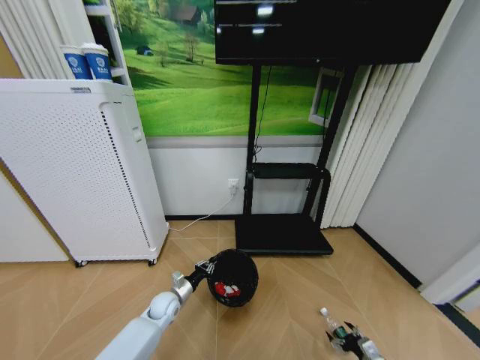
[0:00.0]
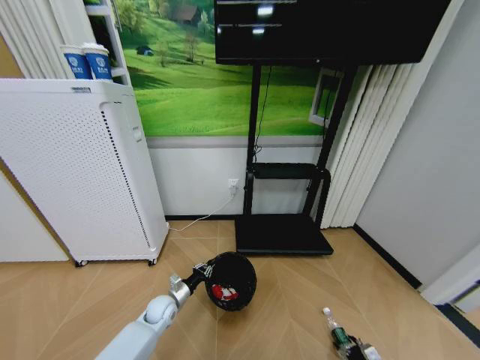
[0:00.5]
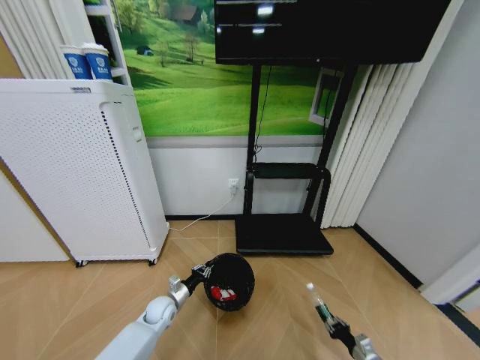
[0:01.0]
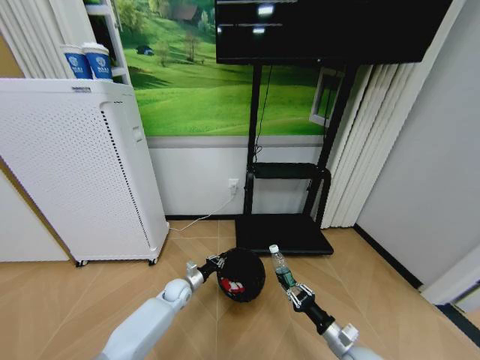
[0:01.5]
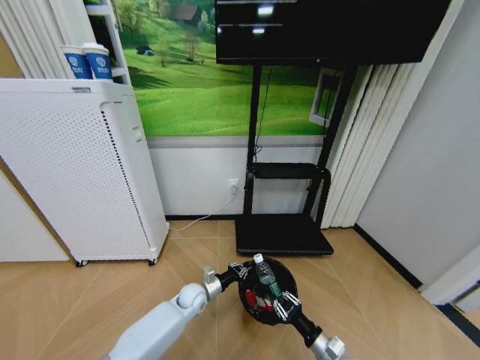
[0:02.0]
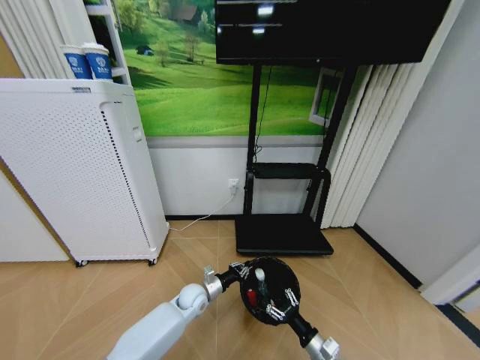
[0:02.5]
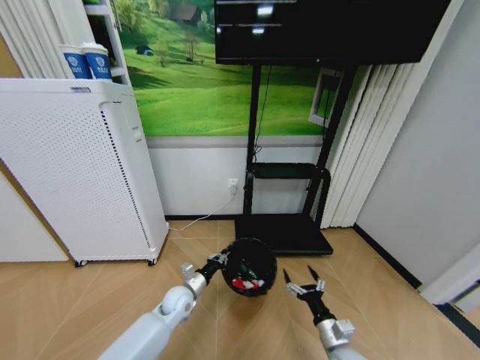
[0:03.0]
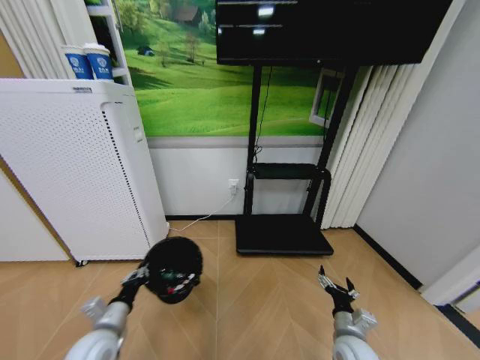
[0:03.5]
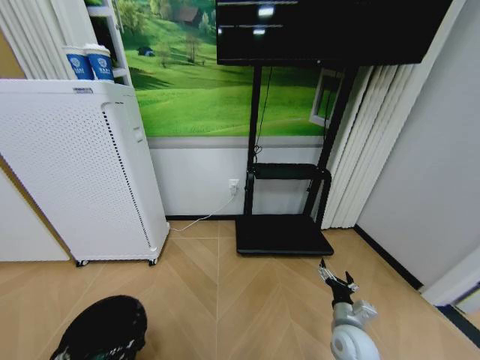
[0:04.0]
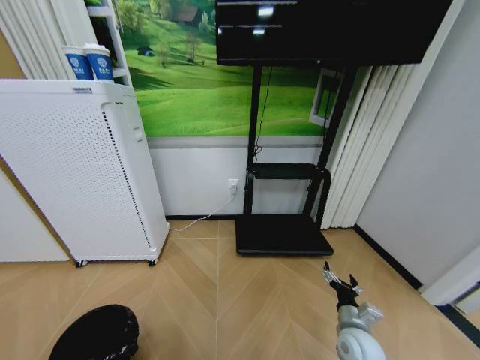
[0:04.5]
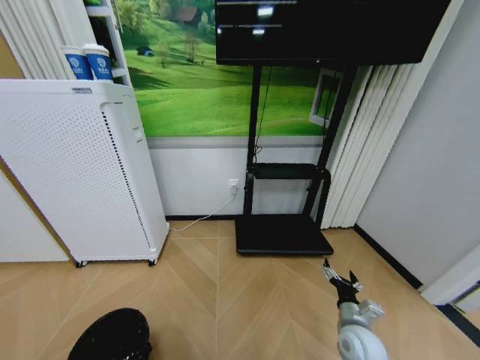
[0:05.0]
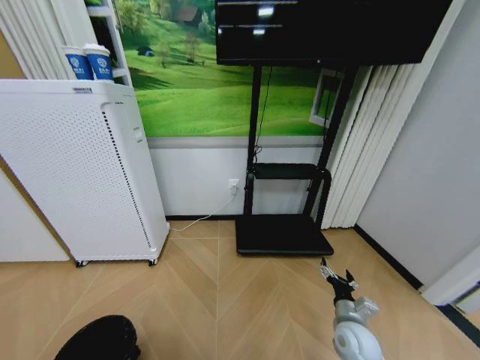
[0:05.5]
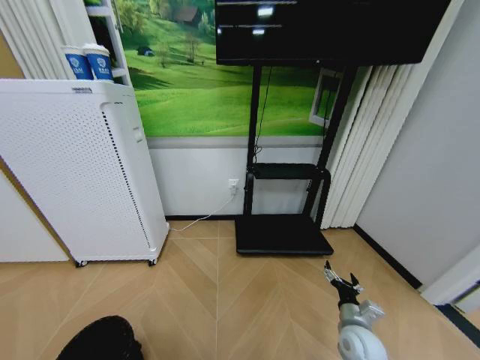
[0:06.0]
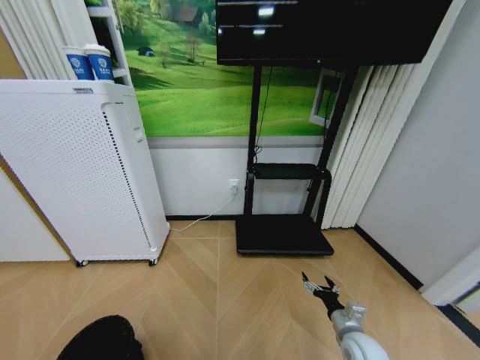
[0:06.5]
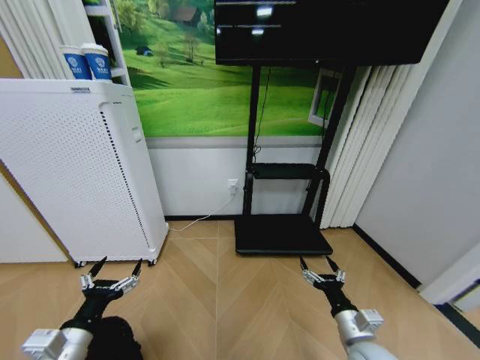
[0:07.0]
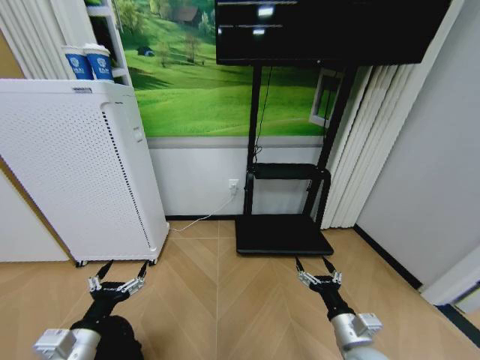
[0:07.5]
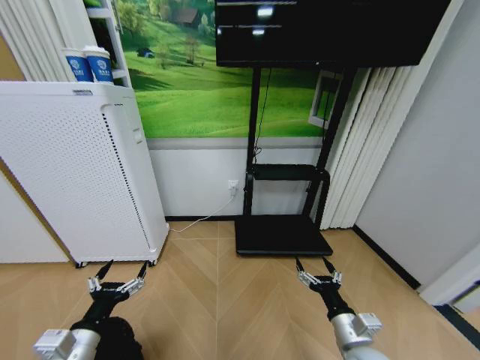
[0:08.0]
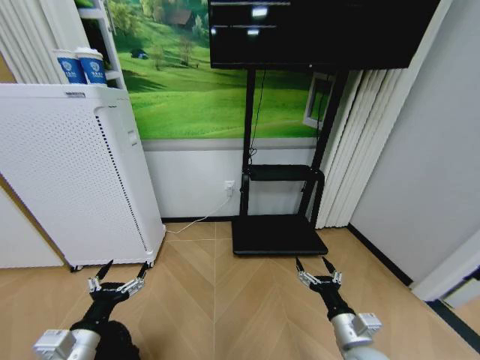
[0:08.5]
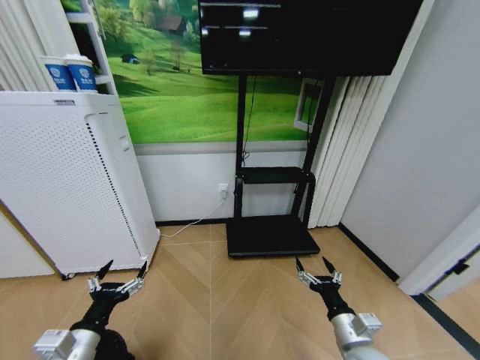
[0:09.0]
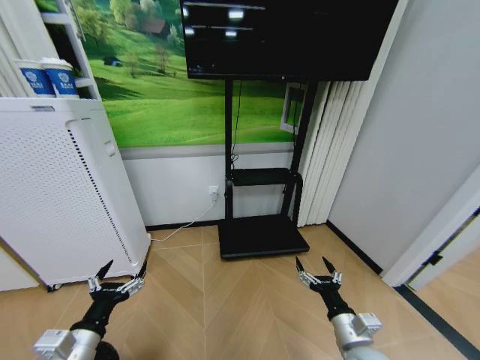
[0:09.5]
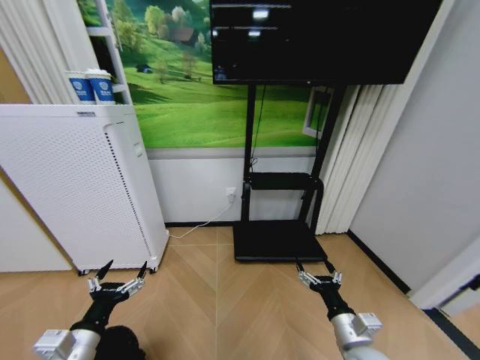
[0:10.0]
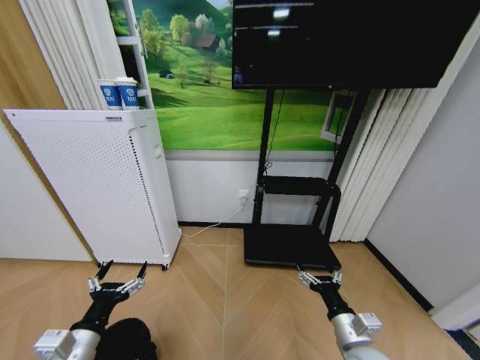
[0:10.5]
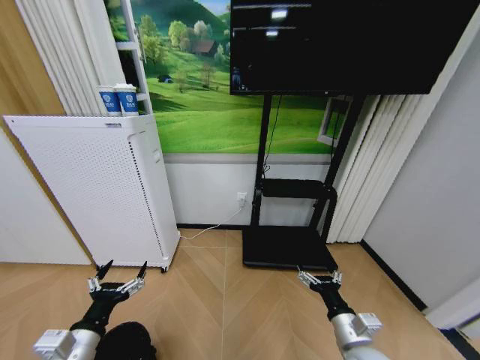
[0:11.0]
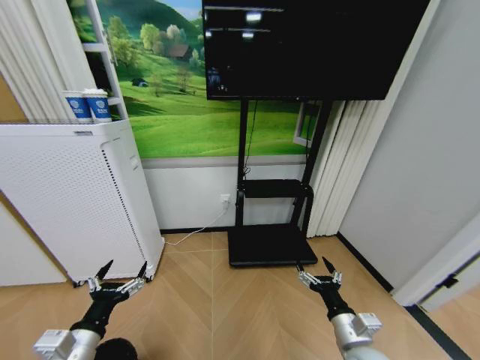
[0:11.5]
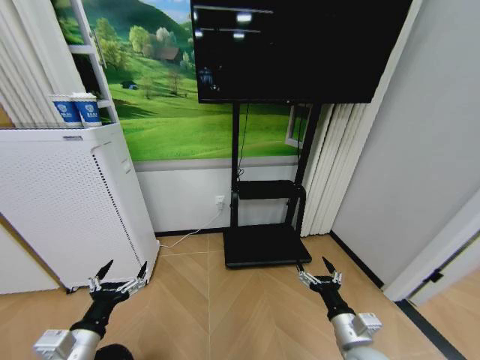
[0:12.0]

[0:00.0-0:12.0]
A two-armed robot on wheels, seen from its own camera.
Task of the whole recording: Pick up the trash bin and place the garbage on the floor into it.
0:00.0 to 0:02.0: The left gripper shifts about 10 cm to the right. Meanwhile the right gripper heads to the left and upward, covering some 20 cm, and closes its fingers.
0:02.0 to 0:04.0: The right gripper heads forward, covering some 5 cm, and opens up; the left gripper shifts some 40 cm backward and to the left.
0:04.0 to 0:06.0: The left gripper ends up some 5 cm from where it was, and opens.
0:06.0 to 0:08.0: The right gripper heads upward, backward and to the left, covering some 10 cm, while the left gripper shifts roughly 20 cm upward and forward, and opens up.

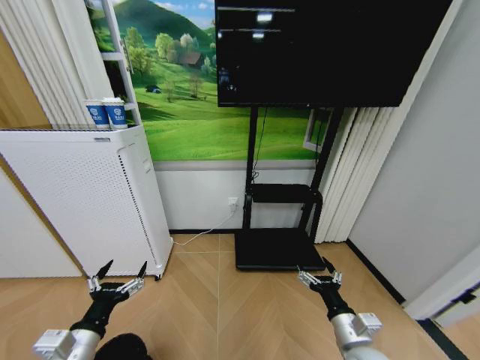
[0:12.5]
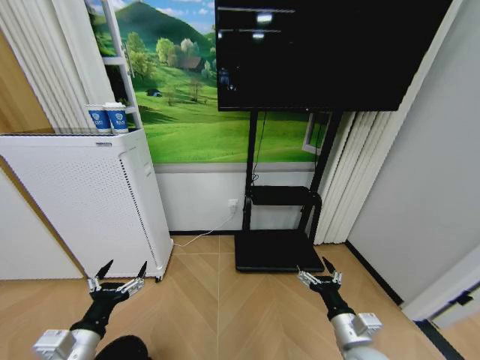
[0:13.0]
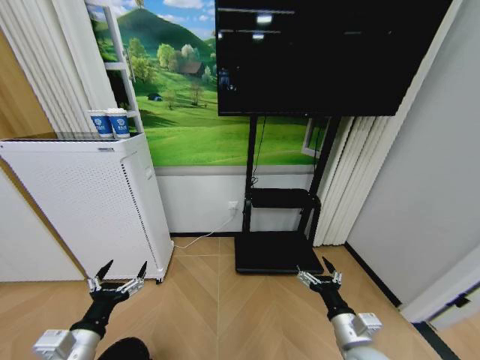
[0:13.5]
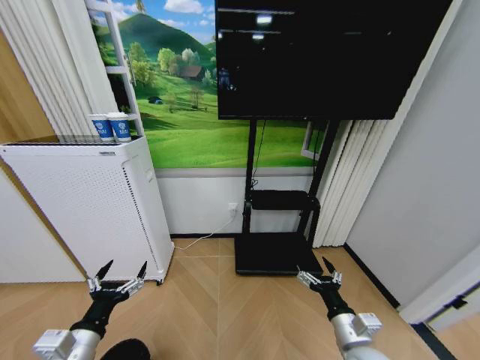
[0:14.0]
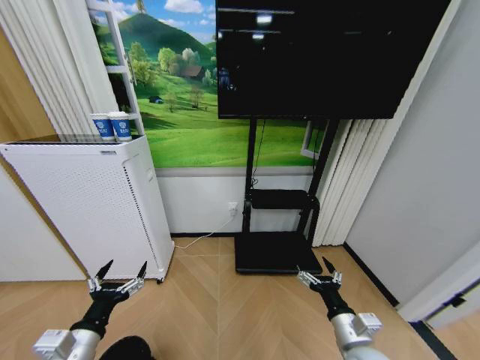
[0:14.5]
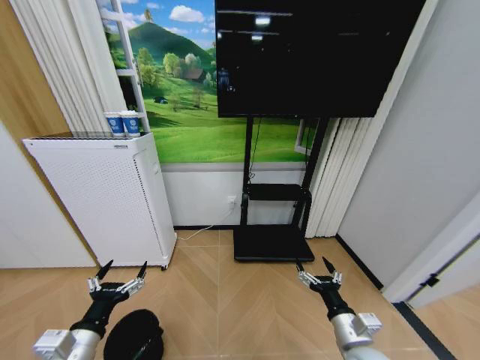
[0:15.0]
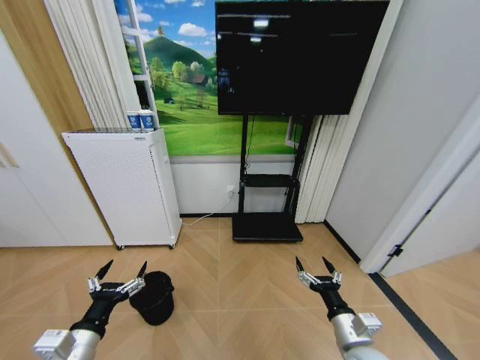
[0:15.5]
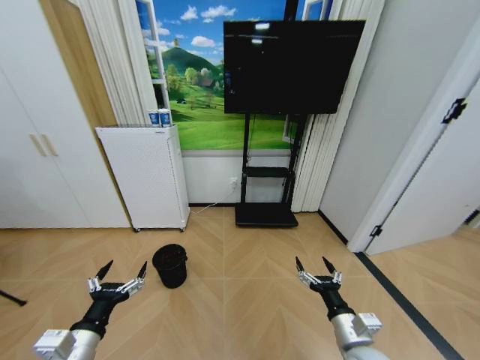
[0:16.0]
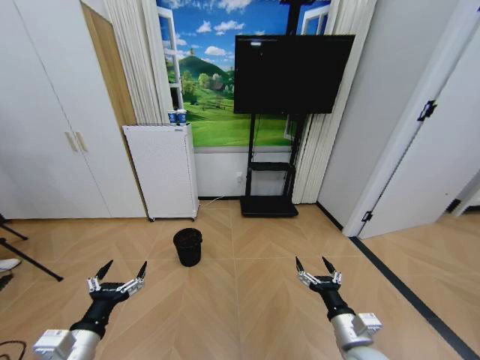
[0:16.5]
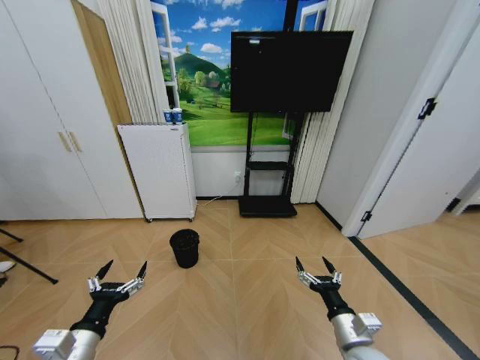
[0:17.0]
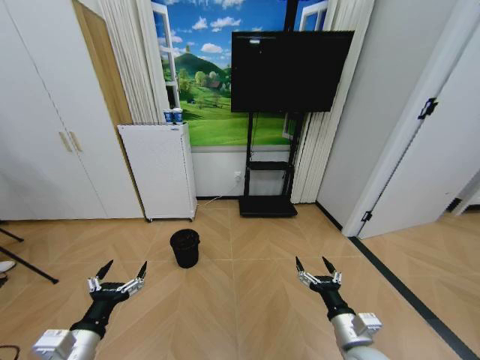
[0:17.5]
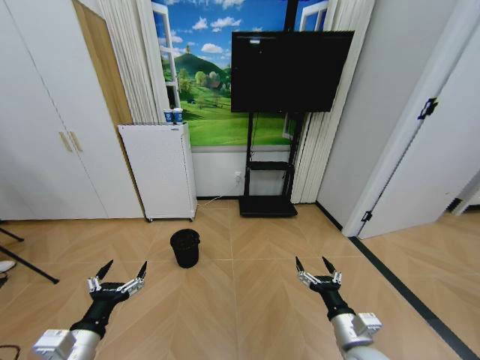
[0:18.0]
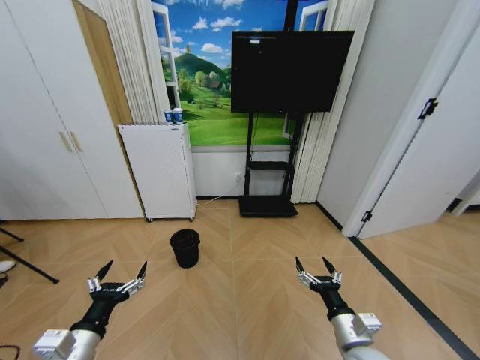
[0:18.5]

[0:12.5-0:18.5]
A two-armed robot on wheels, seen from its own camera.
Task of the whole recording: Pick up the trash bin and place the garbage on the floor into it.
0:12.5 to 0:14.5: Both grippers stay put.
0:16.5 to 0:18.5: Both grippers stay put.

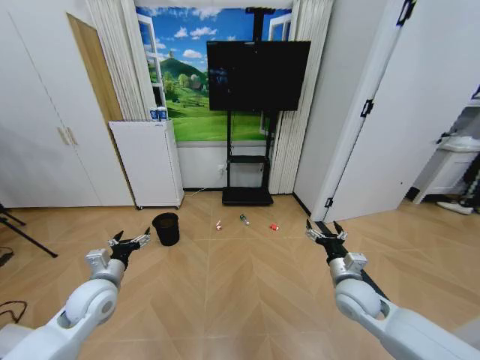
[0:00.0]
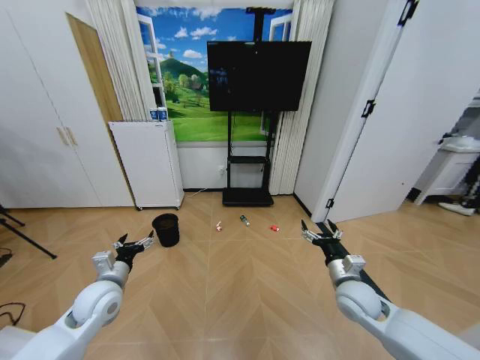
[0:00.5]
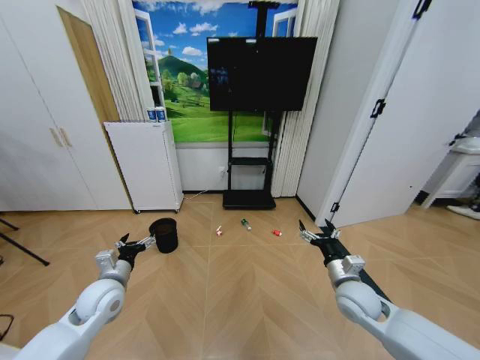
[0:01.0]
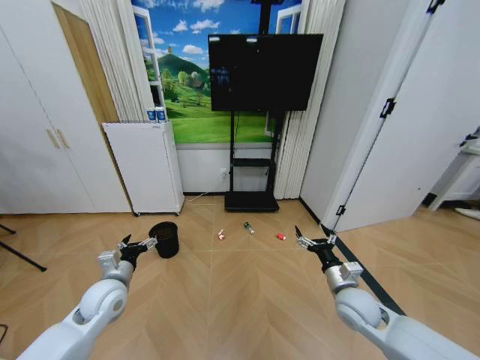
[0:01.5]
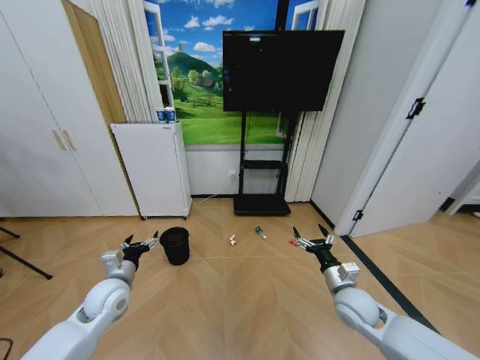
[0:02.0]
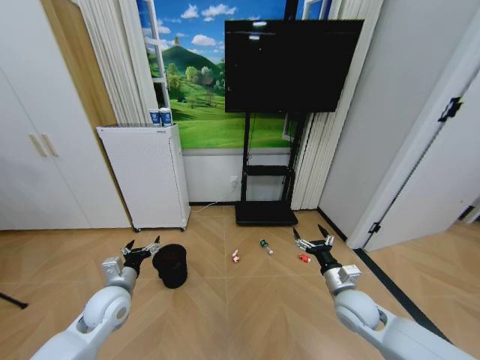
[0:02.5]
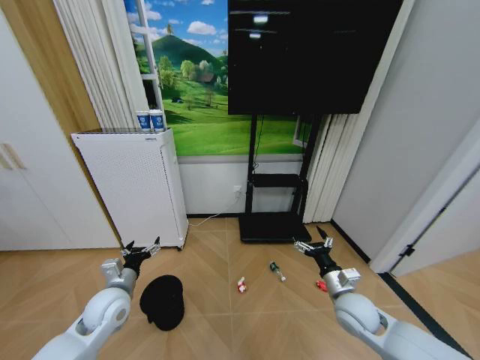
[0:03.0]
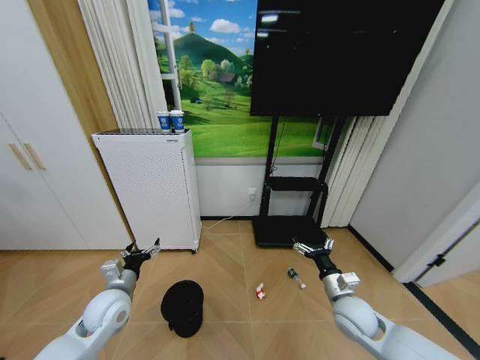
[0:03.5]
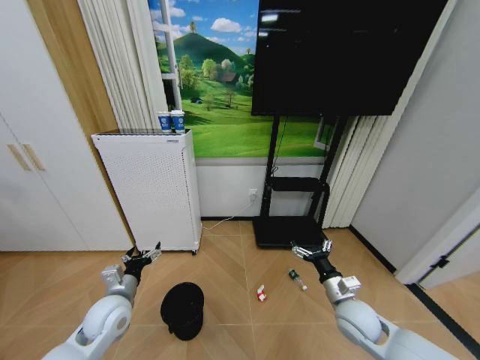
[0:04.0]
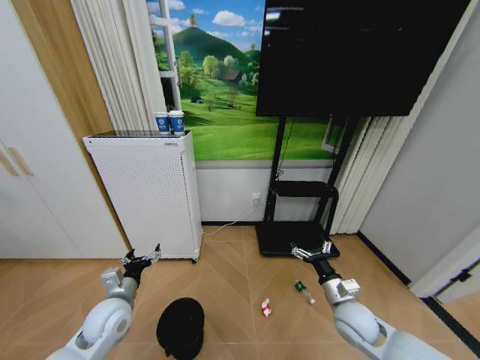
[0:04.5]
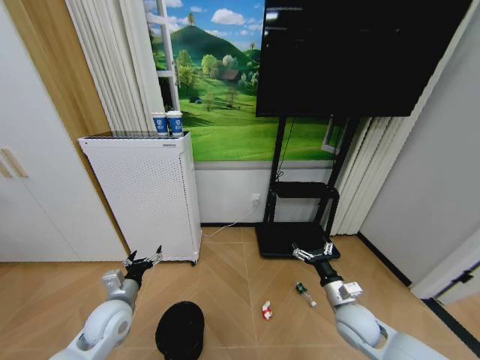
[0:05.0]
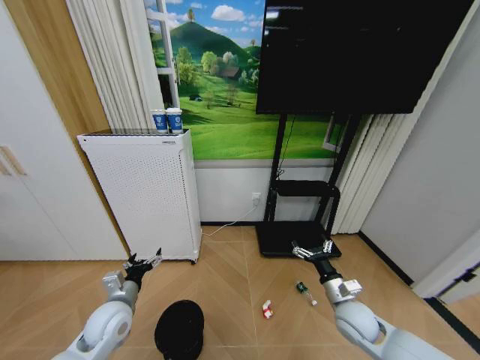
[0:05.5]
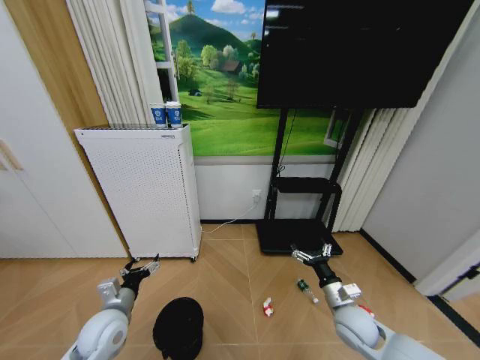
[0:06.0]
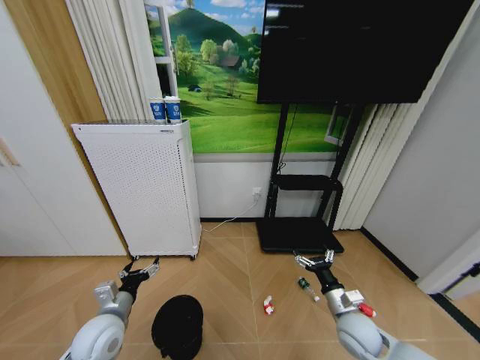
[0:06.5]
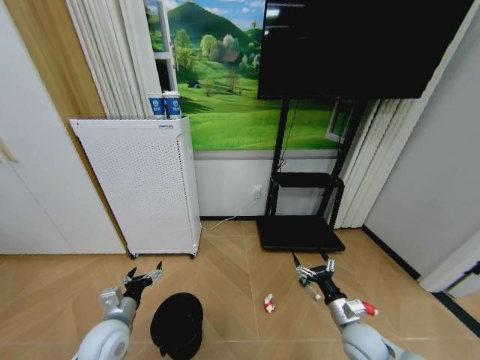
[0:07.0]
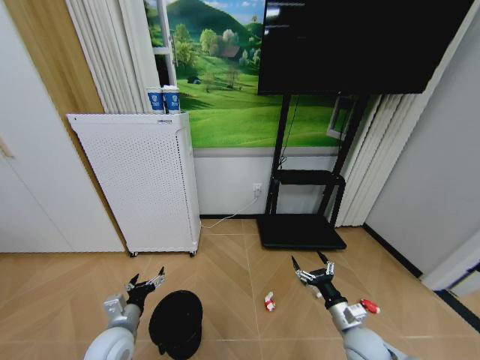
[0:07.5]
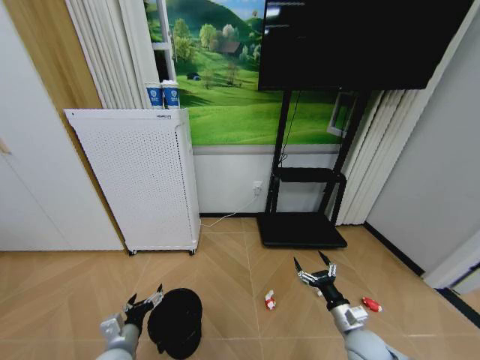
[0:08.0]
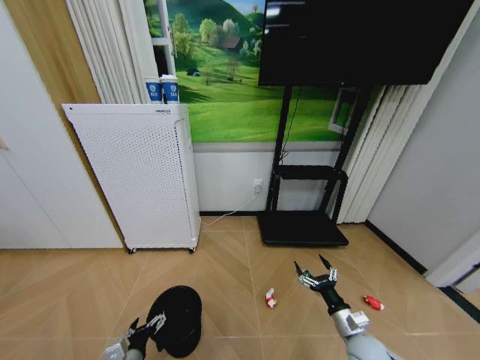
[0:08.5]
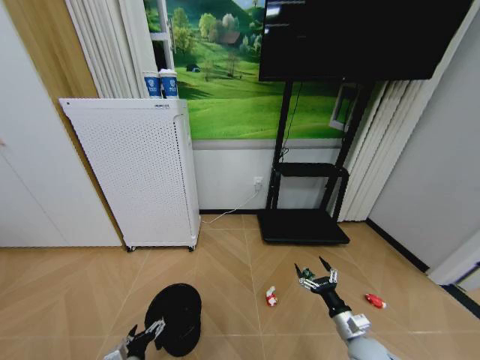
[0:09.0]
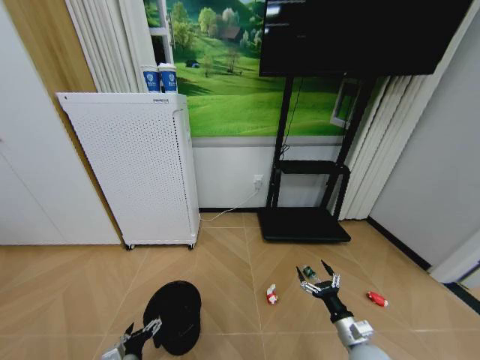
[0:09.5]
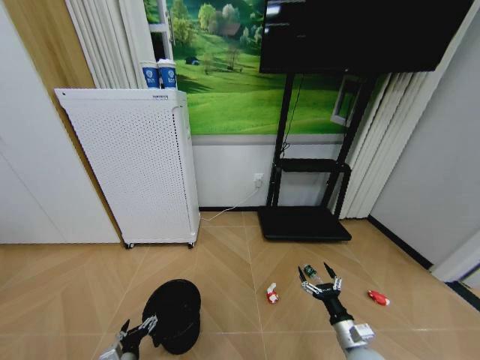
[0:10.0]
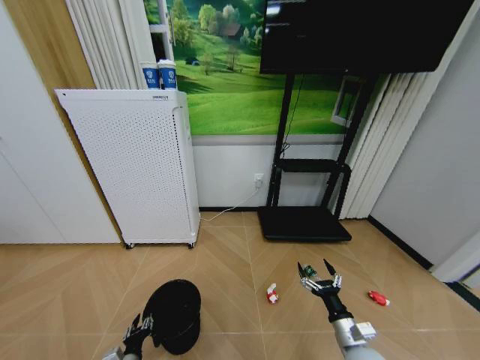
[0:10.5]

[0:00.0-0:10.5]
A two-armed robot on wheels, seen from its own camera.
Task of the whole recording: Pick up the trash bin and place the garbage on the floor into it.
0:06.5 to 0:08.5: The right gripper moves about 5 cm; the left gripper moves downward and backward, approximately 15 cm.
0:08.5 to 0:10.5: The left gripper heads downward, covering approximately 5 cm, and closes.
